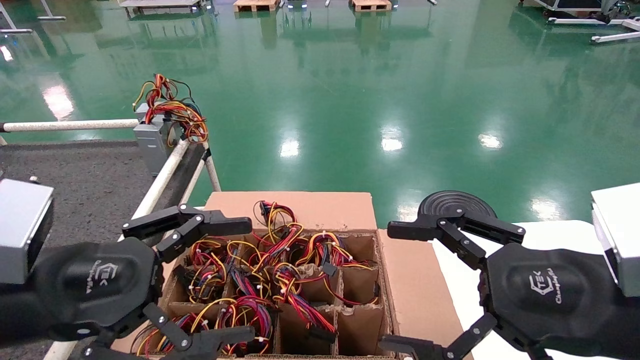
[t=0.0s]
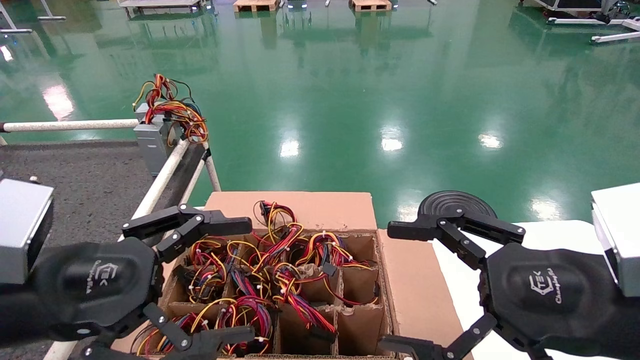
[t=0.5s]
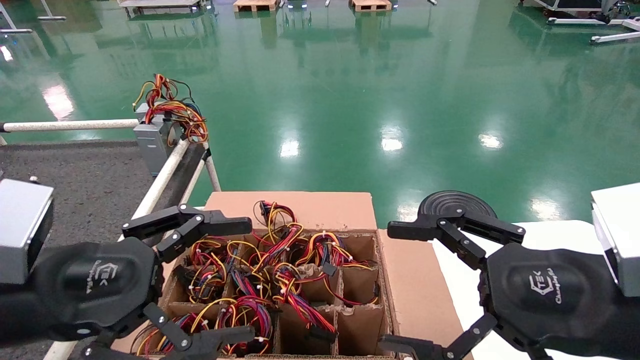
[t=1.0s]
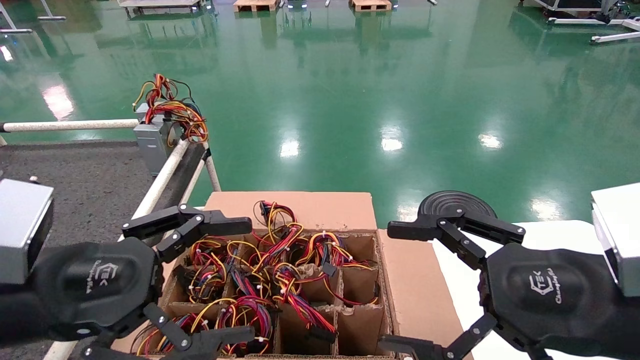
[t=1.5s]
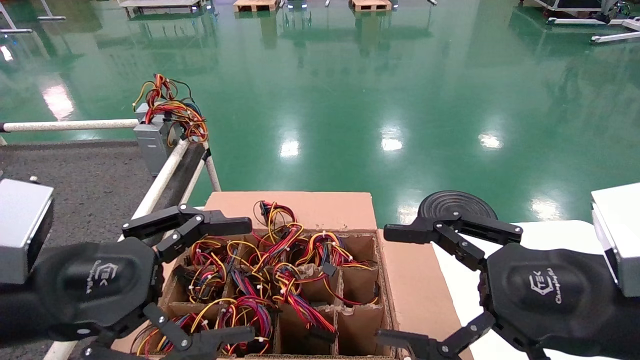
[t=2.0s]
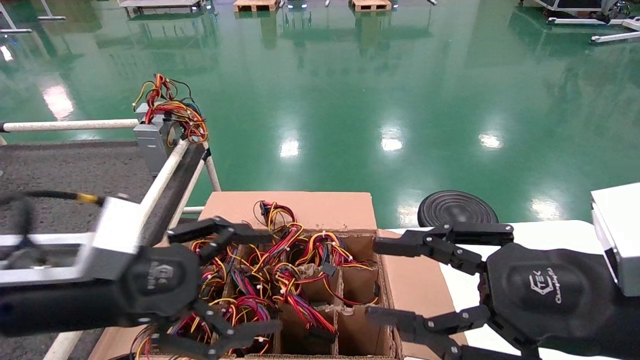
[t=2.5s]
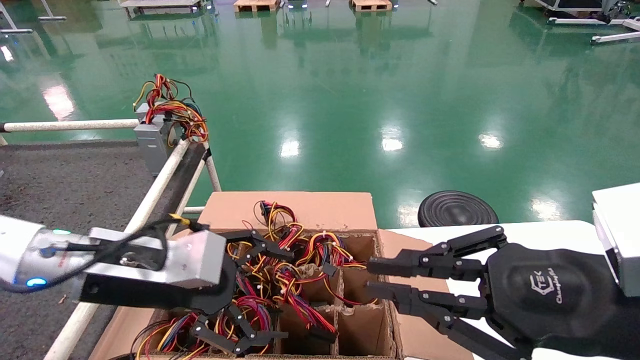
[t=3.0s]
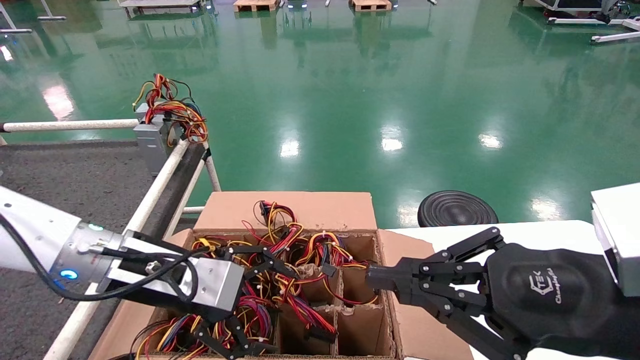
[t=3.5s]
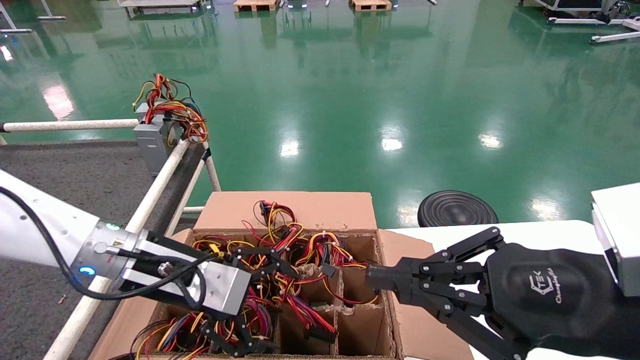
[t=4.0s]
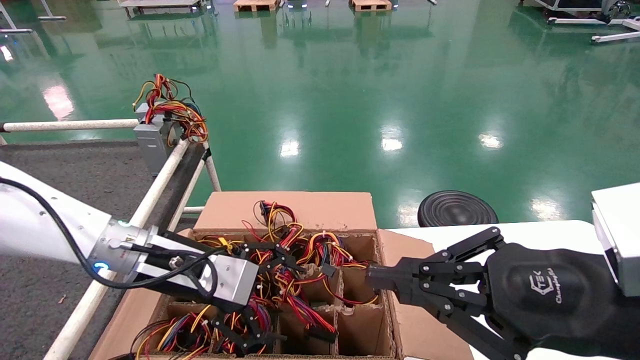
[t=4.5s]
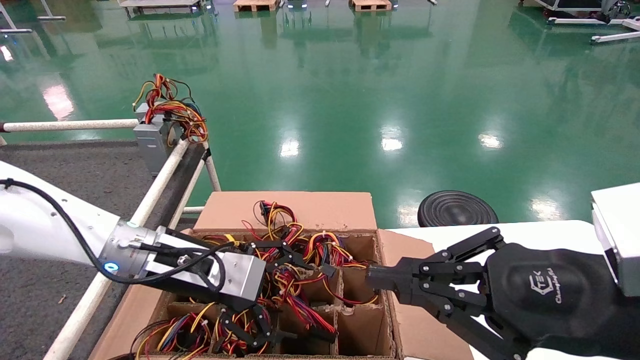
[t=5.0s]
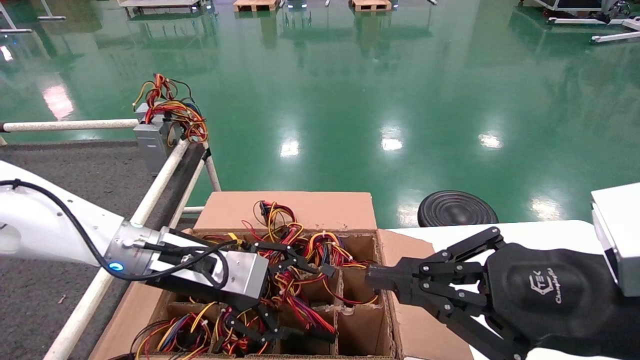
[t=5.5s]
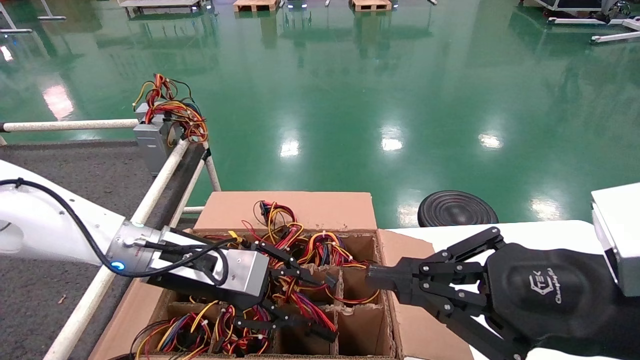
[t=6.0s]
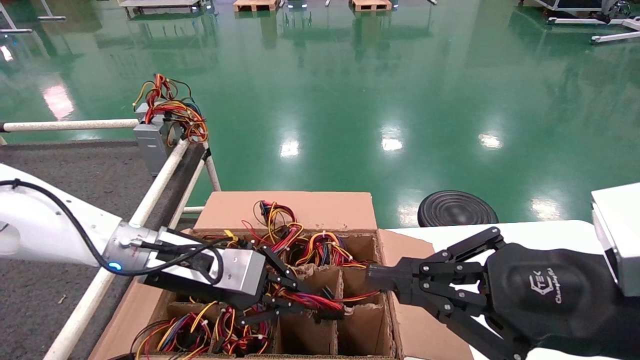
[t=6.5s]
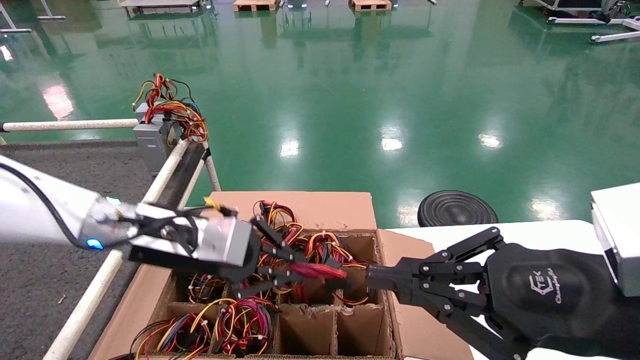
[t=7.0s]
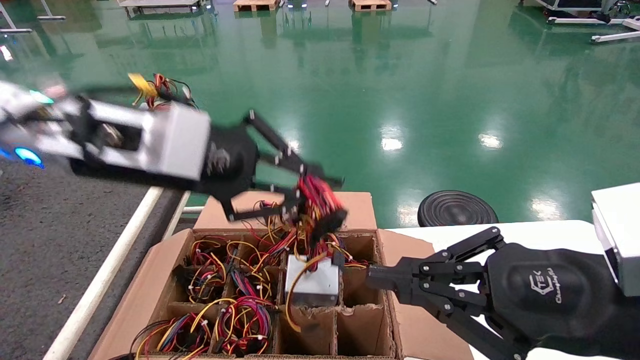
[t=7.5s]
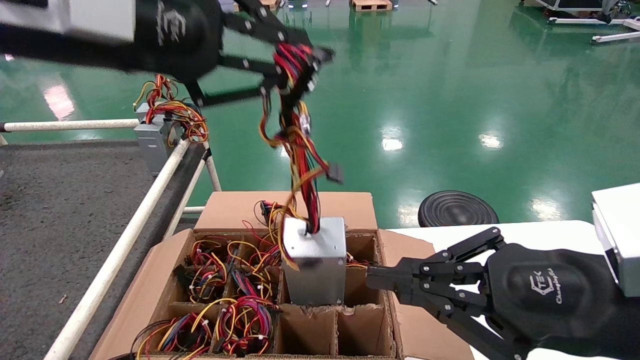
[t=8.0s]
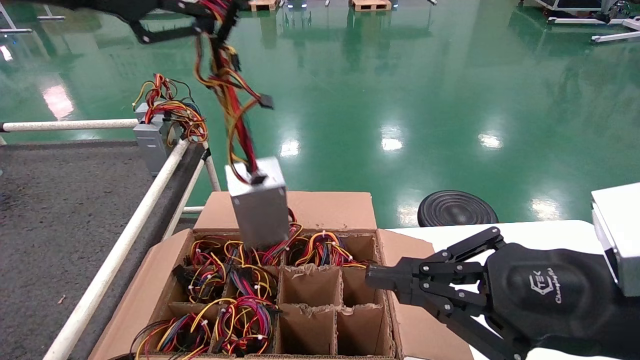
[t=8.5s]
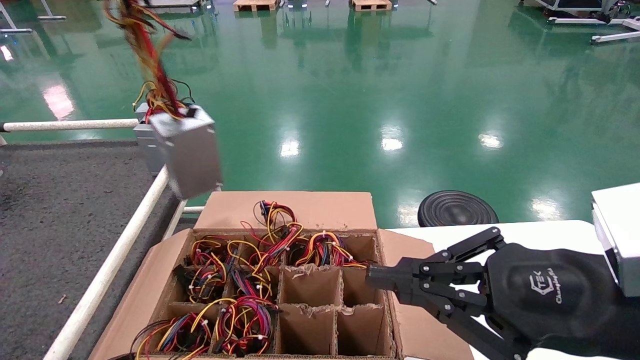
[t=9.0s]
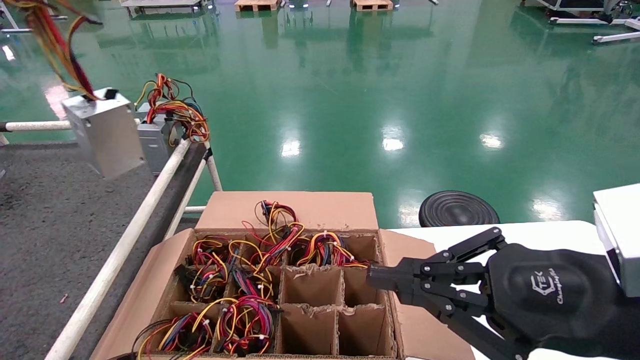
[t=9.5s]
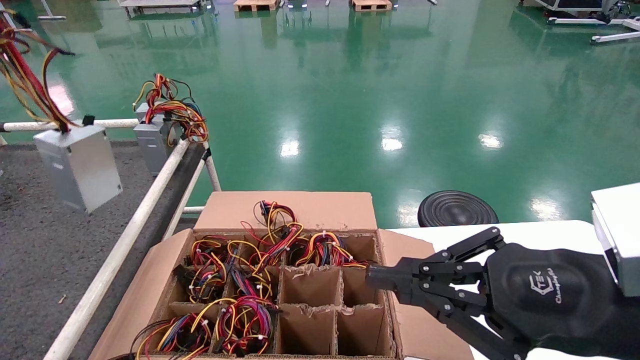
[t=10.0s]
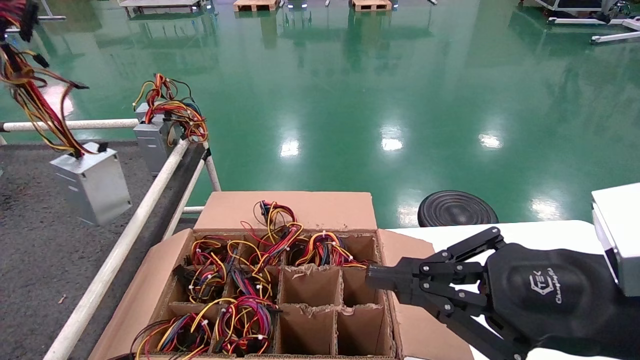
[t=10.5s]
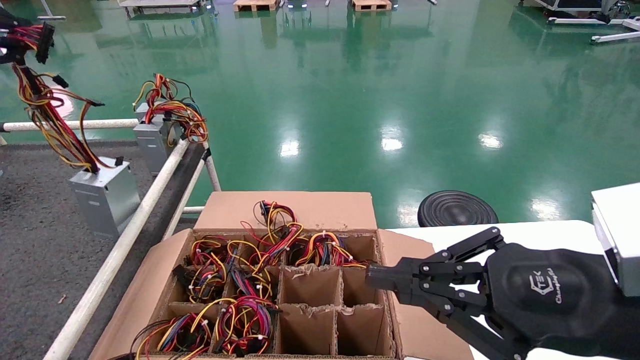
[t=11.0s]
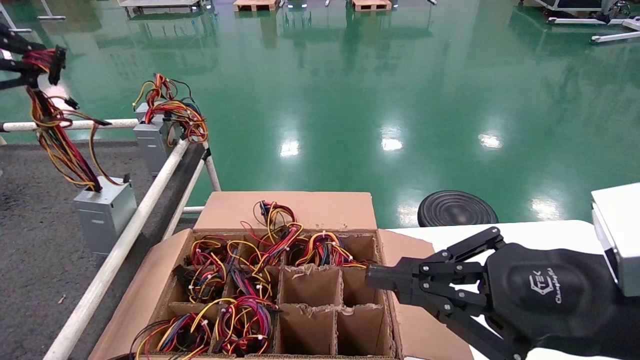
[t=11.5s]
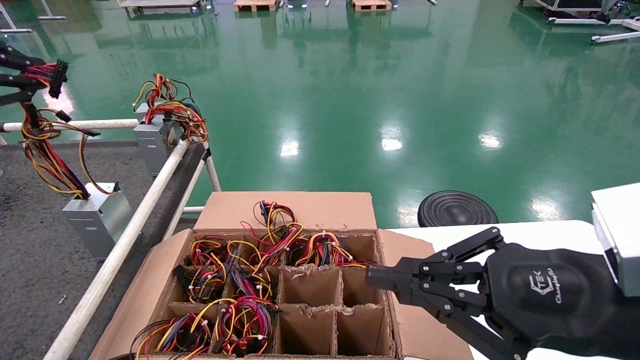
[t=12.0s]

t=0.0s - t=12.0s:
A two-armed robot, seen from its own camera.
Step, t=2.5s - t=6.5s: Grab and lift the power supply from the large box.
t=0.0s - t=2.0s: Both grippers stay about where they are.
t=2.0s - t=4.0s: The right gripper closes its fingers. Meanwhile the left gripper is displaced forward and to the right by roughly 15 cm.
t=4.0s - t=6.0s: The left gripper closes its fingers.
t=6.0s - t=8.0s: The left gripper goes roughly 30 cm upward and backward, and closes.
t=8.0s - t=10.0s: The left gripper moves to the left, roughly 25 cm.
t=10.0s - t=12.0s: The left gripper moves downward, roughly 10 cm.

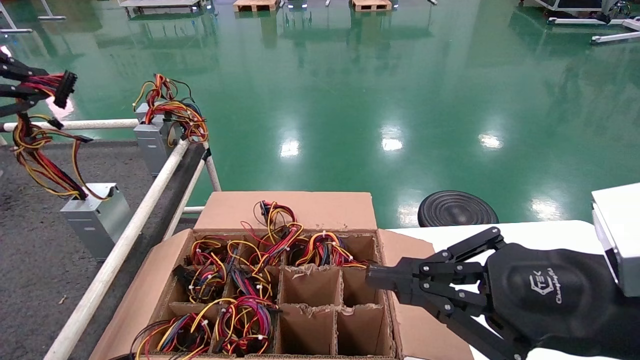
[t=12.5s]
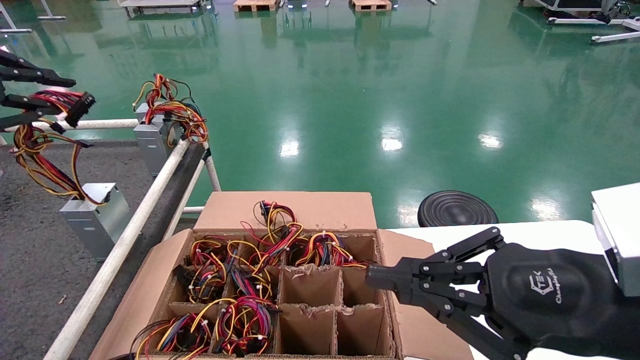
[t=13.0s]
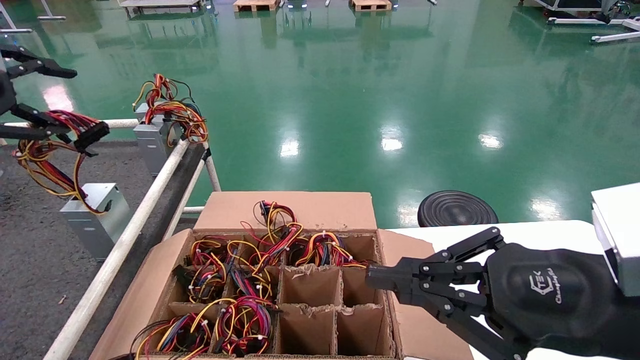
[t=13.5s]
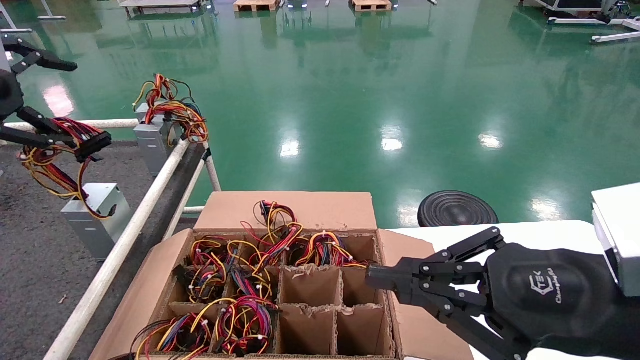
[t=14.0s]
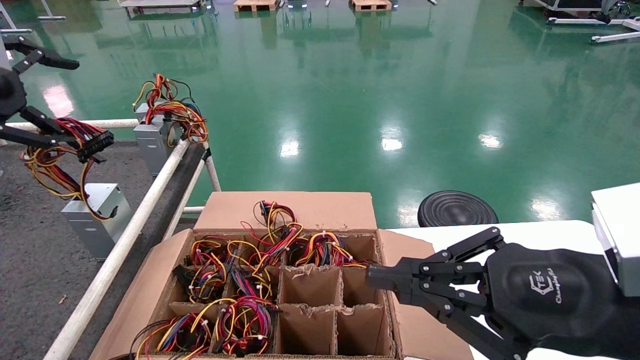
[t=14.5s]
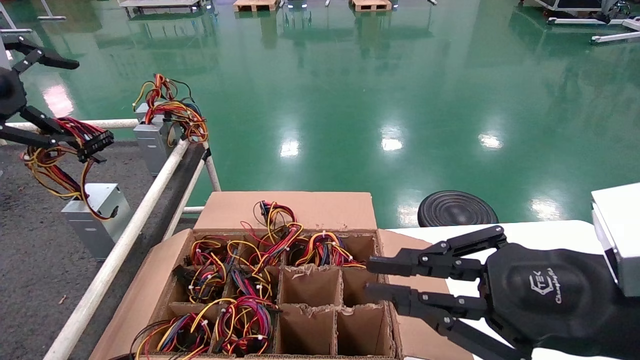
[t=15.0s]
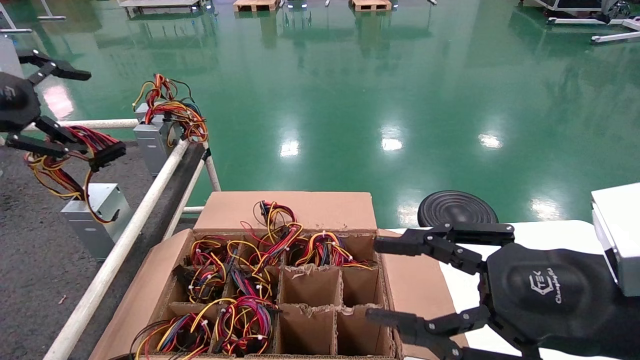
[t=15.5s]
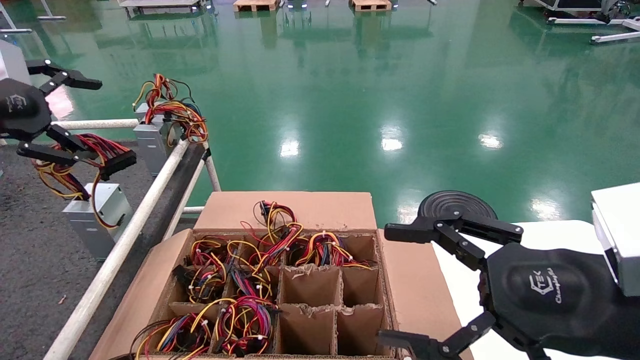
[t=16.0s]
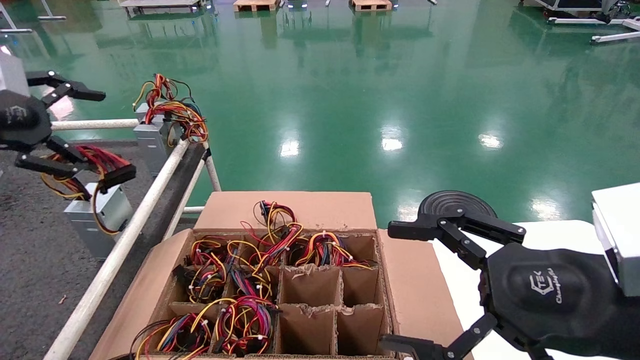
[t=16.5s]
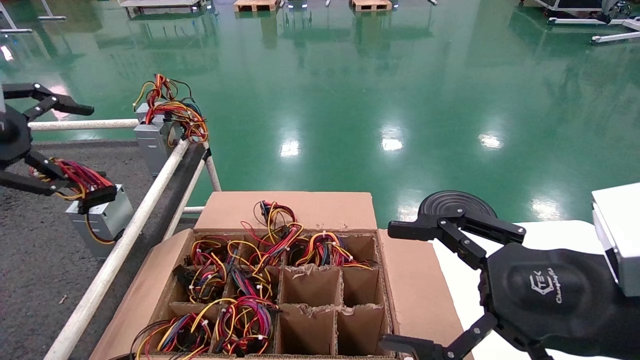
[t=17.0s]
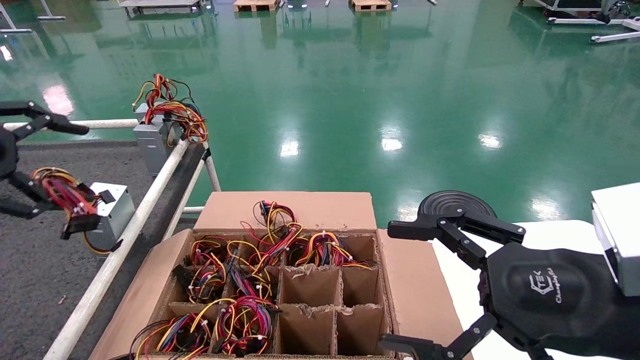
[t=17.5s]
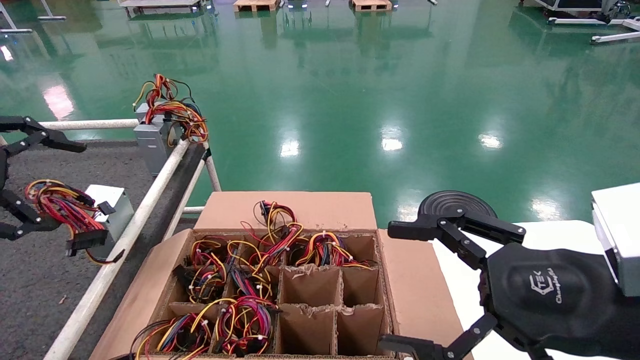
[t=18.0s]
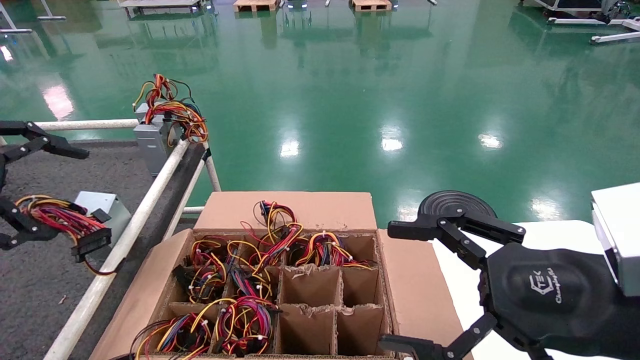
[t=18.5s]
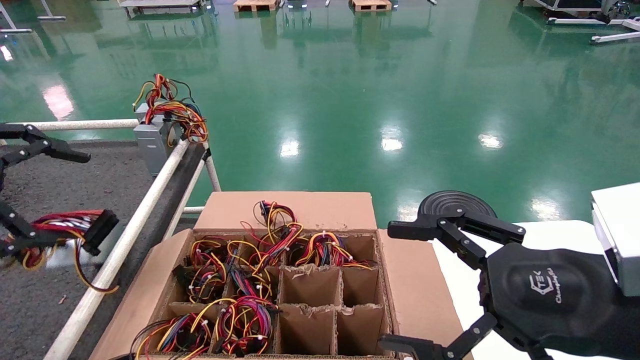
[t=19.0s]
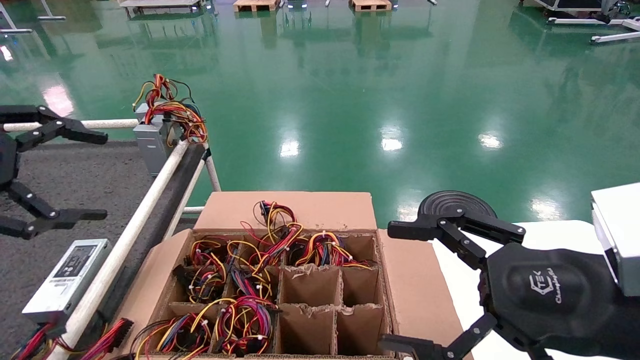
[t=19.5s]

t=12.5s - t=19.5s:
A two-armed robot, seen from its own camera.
t=12.5s - t=14.5s: The left gripper opens.
t=14.5s - t=16.0s: The right gripper opens.
t=16.0s - t=17.5s: The left gripper shifts approximately 5 cm backward.
t=17.5s - t=19.5s: The grippers move only a little.
